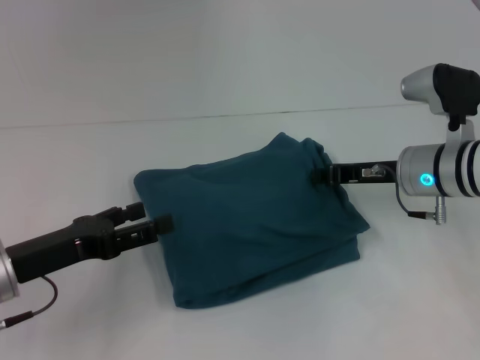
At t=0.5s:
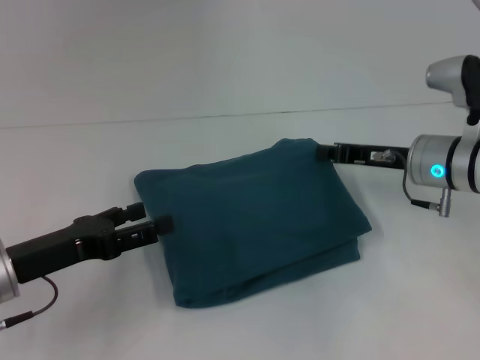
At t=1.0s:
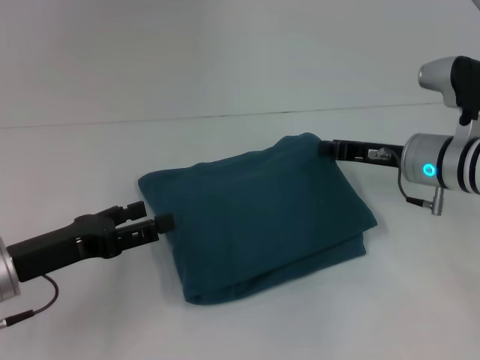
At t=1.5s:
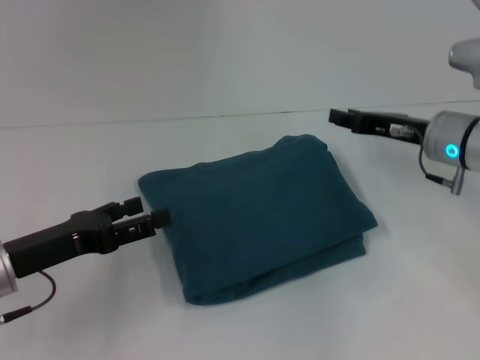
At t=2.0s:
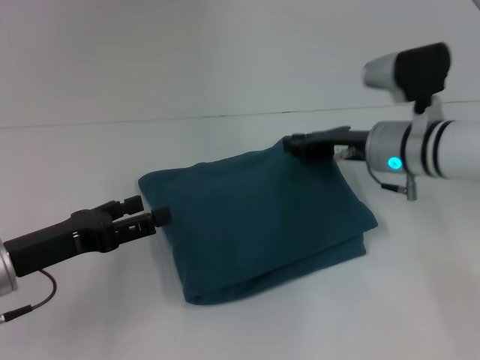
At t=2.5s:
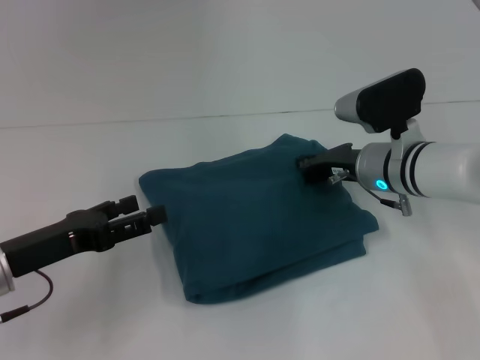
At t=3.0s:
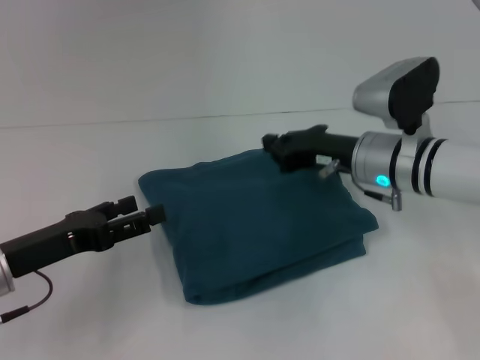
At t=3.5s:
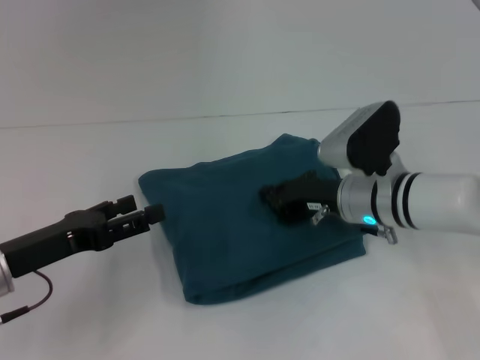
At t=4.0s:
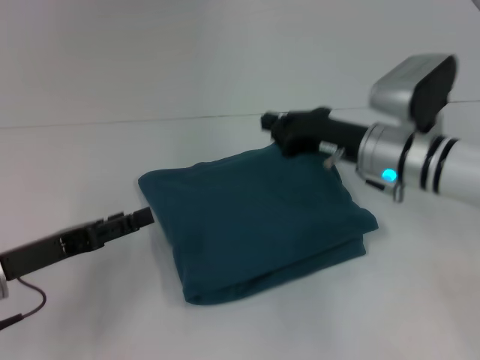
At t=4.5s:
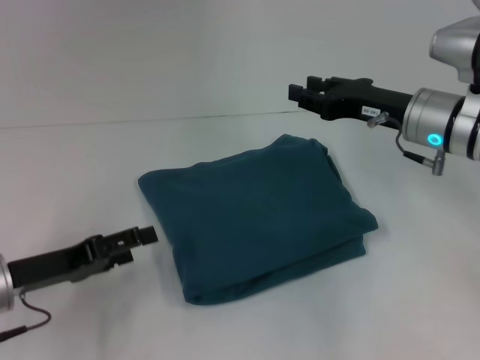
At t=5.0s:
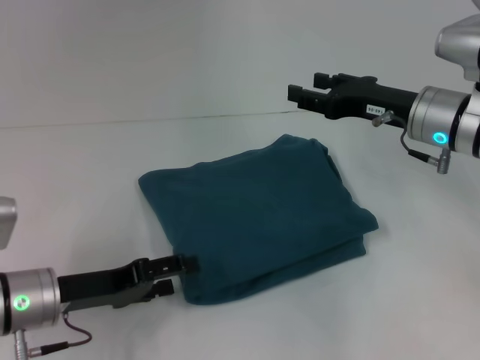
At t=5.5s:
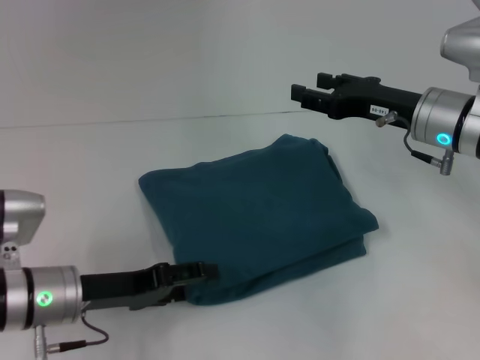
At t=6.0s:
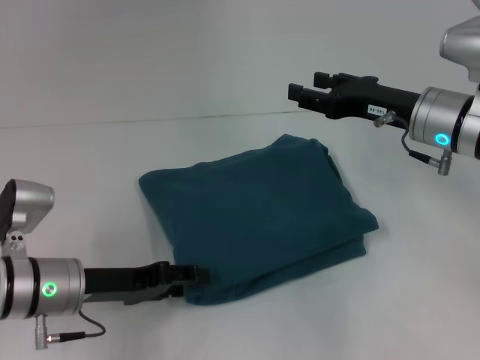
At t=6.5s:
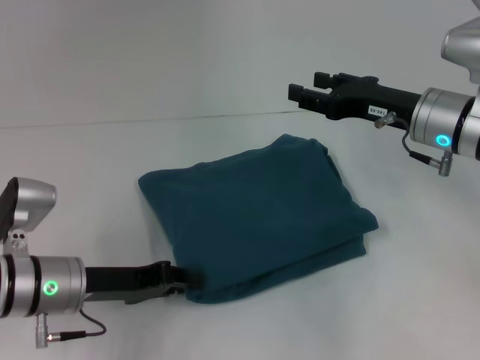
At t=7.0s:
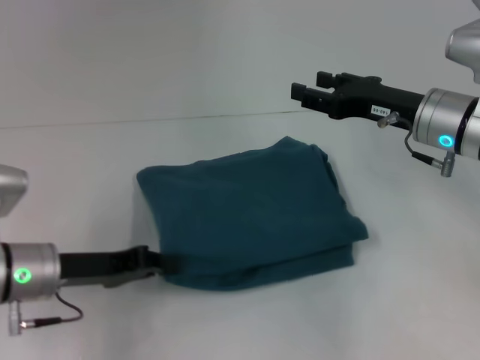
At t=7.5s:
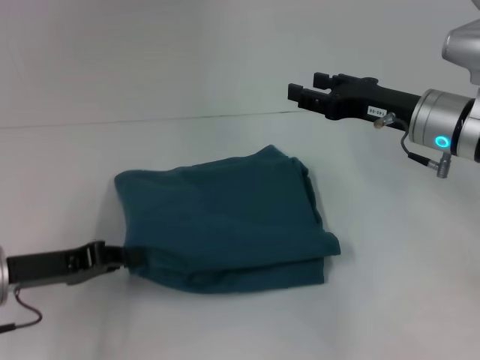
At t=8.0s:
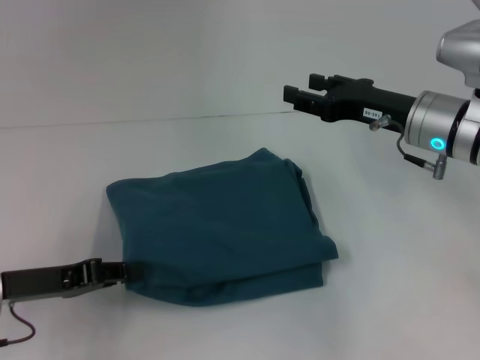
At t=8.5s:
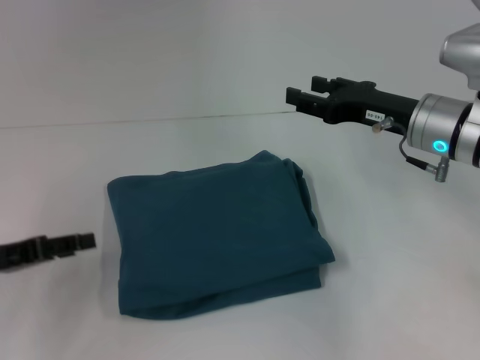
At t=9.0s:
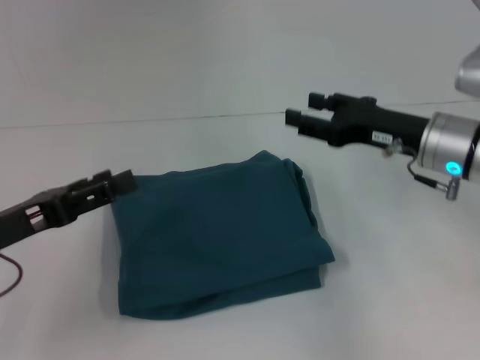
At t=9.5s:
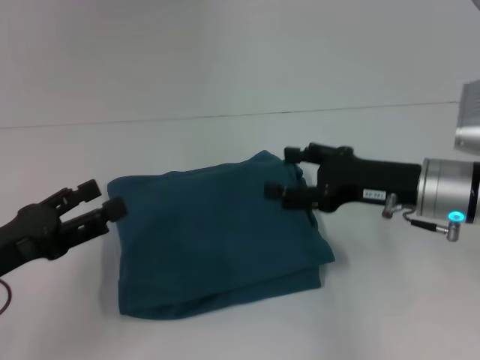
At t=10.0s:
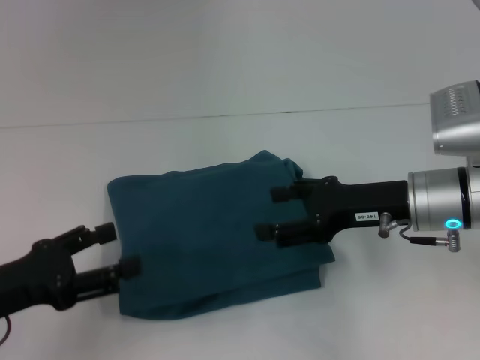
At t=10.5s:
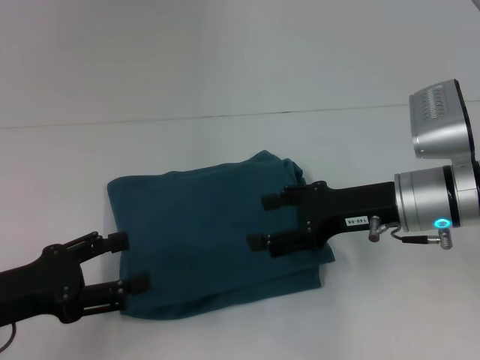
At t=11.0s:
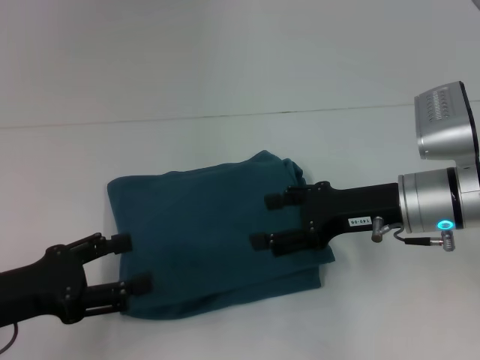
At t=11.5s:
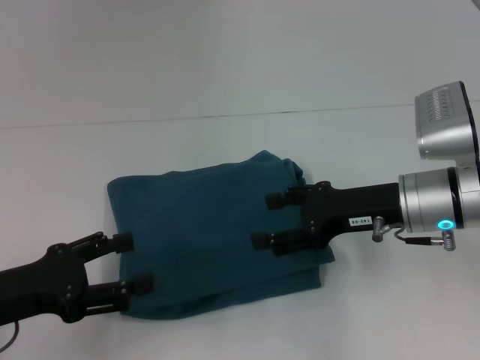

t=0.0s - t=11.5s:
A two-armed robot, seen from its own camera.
t=0.0s - t=2.0s: The grippers make only small movements.
t=4.0s - t=6.0s: The left gripper is displaced to the right by roughly 5 cm. Meanwhile the right gripper changes place by approximately 5 cm, and opens up.
t=6.0s - t=7.5s: The left gripper heads to the left, covering approximately 5 cm, and closes its fingers.
t=7.5s - t=9.5s: The right gripper travels backward by approximately 5 cm, while the left gripper shifts by approximately 5 cm, and opens its fingers.
t=9.5s - t=11.5s: The grippers move only a little.

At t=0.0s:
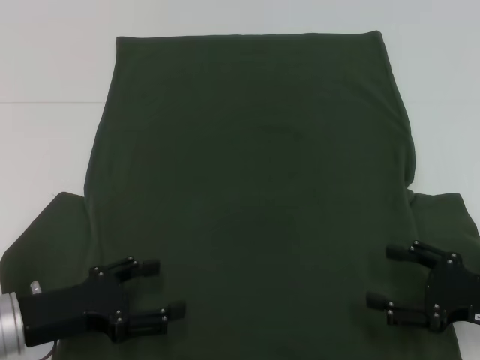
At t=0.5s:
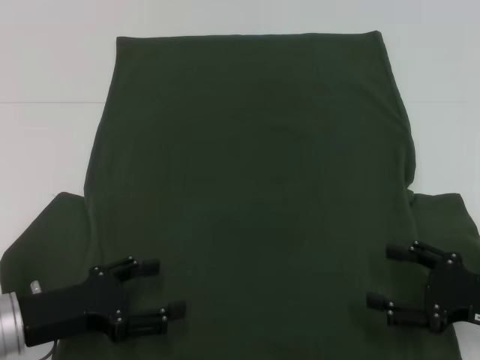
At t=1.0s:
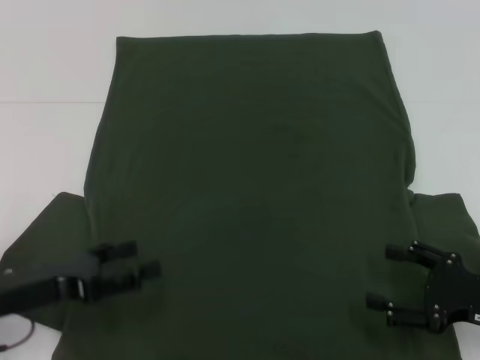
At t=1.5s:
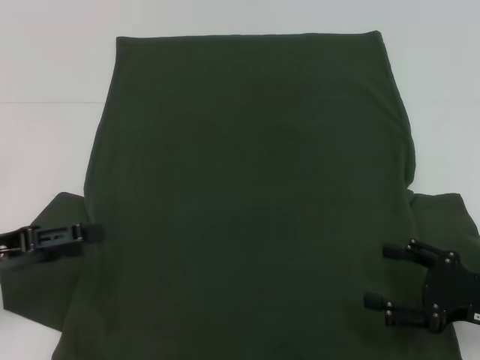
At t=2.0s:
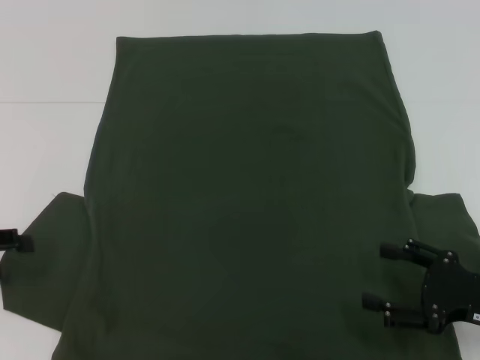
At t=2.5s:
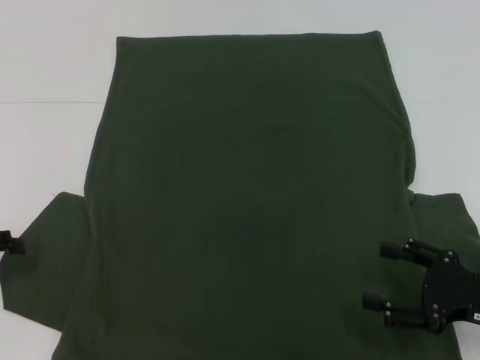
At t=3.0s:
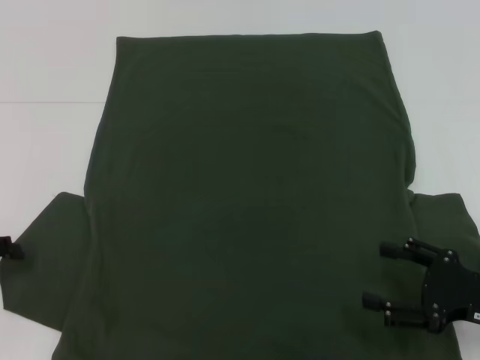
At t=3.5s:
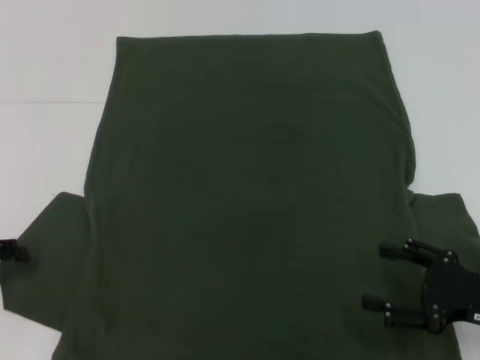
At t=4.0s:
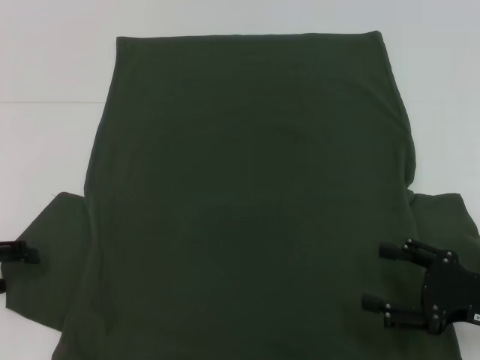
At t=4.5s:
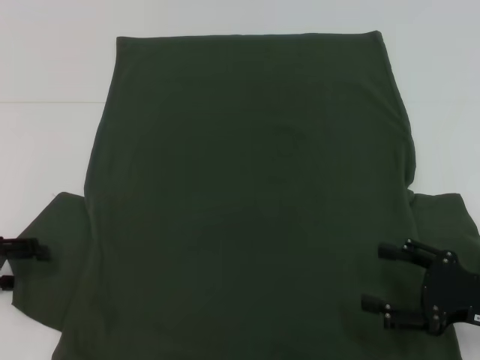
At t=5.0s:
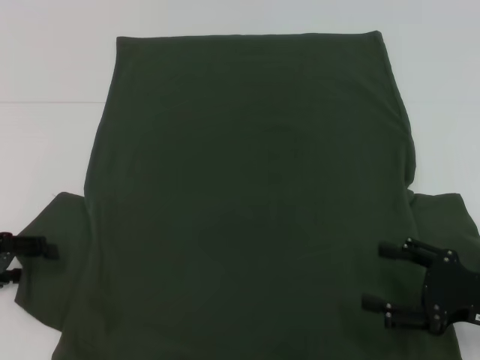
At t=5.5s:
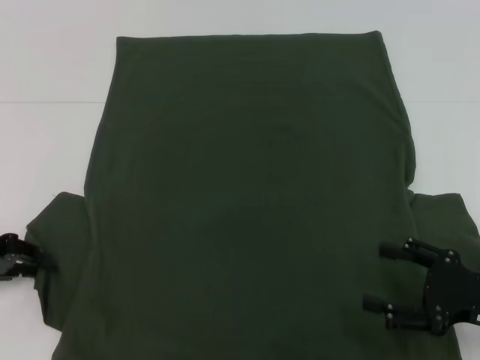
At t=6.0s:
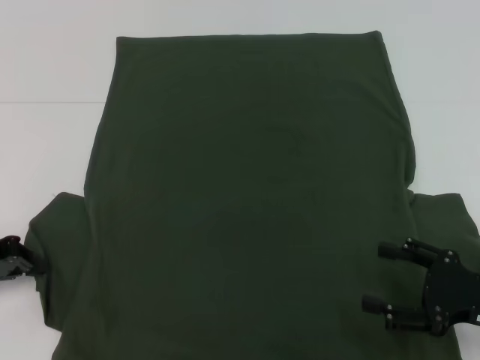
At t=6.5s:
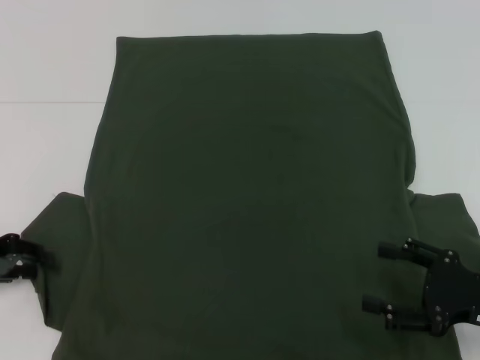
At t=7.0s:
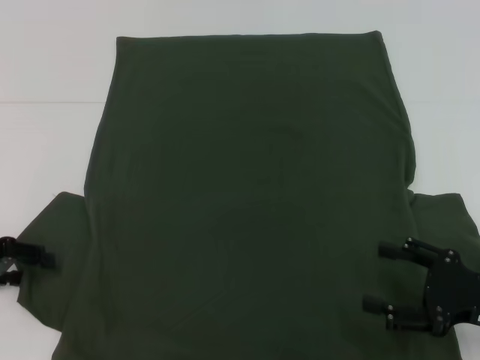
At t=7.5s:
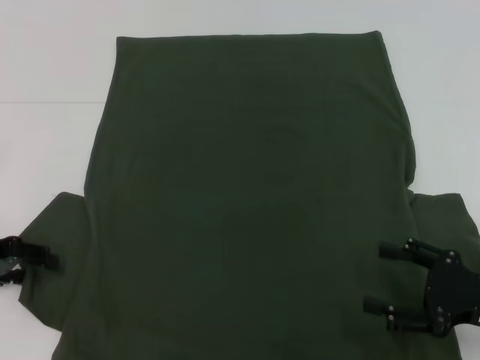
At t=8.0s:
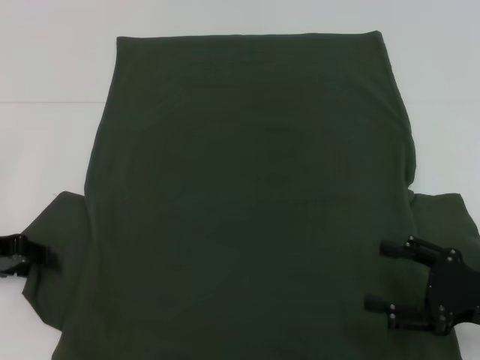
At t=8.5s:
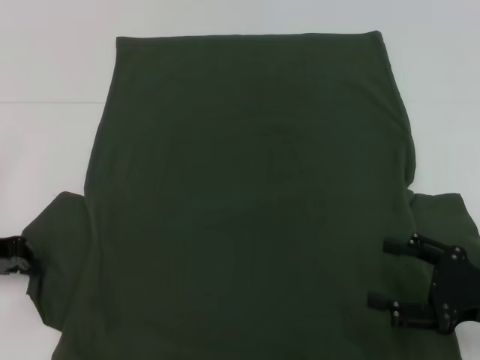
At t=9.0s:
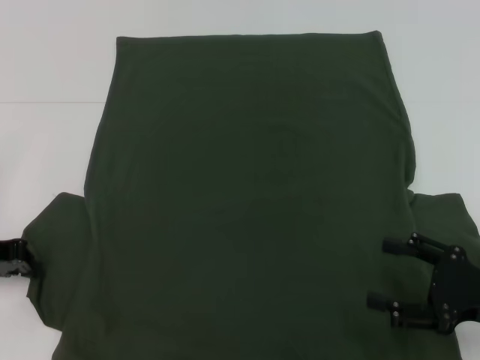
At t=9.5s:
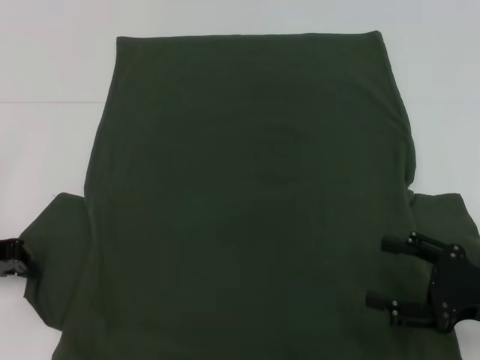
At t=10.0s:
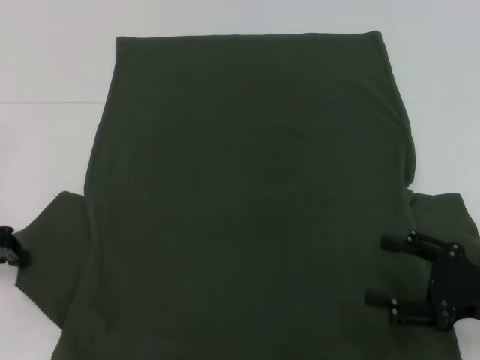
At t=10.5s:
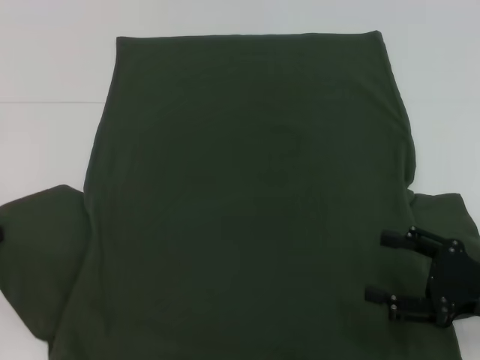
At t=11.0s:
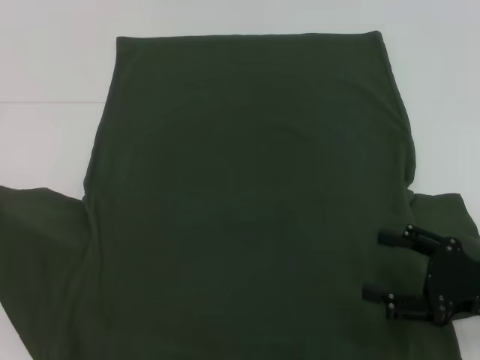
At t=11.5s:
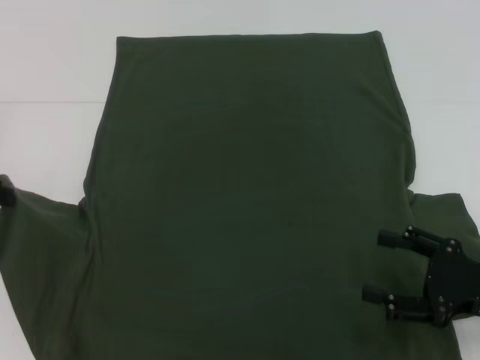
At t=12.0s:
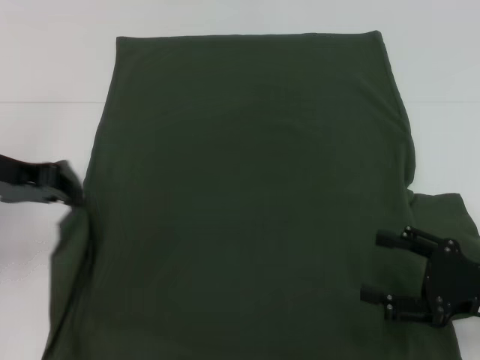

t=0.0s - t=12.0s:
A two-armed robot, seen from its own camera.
t=0.0s - t=2.0s: The left gripper moves to the left and upward, some 15 cm.
t=4.0s - t=6.0s: The left gripper closes up.
t=6.0s - t=8.0s: The left gripper opens up.
t=8.0s - t=10.0s: The left gripper closes.
t=10.0s - t=12.0s: The left gripper heads upward and to the right, covering roughly 10 cm.

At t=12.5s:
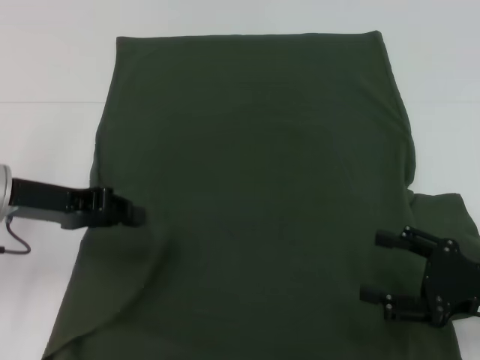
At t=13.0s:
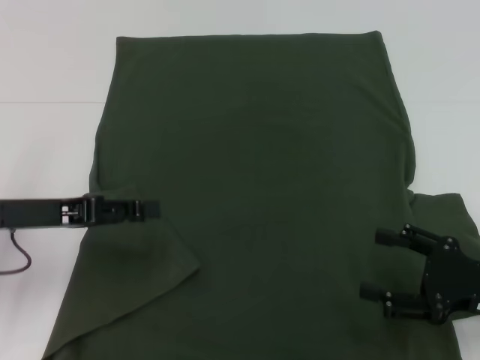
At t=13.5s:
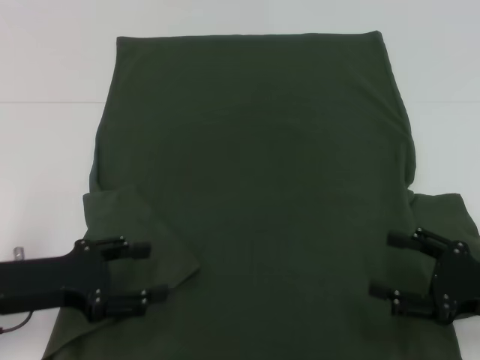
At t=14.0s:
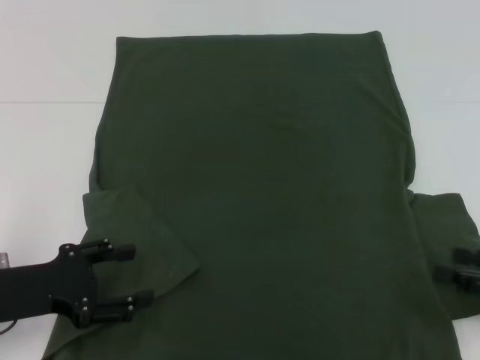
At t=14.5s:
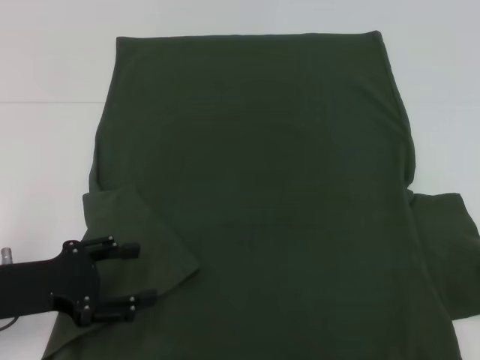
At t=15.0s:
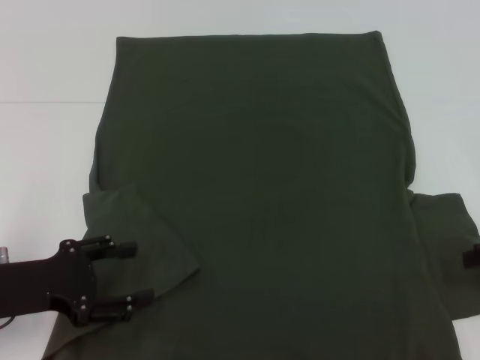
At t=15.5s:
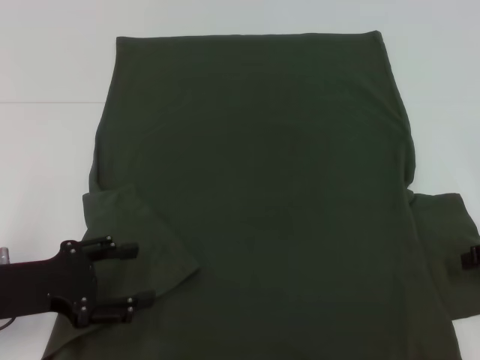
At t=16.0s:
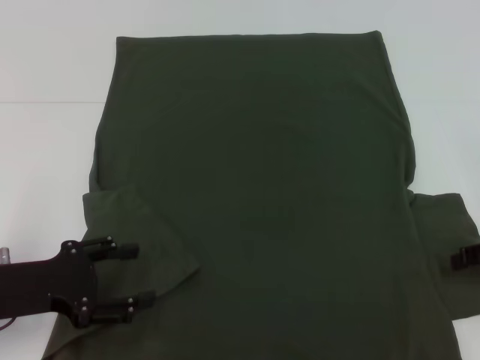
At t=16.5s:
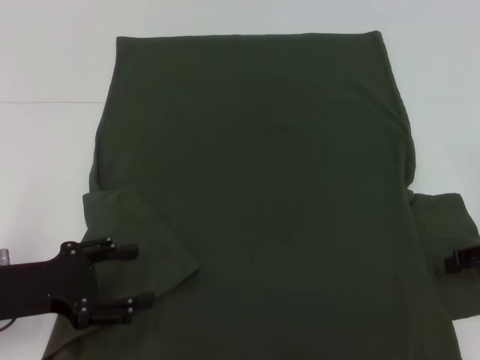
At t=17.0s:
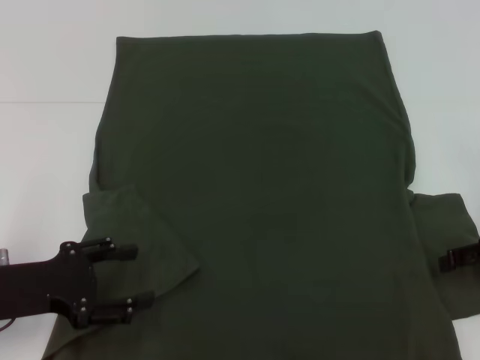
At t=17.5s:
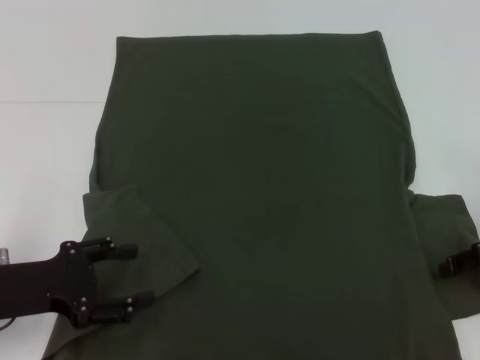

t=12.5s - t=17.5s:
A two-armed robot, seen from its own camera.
Step, t=12.5s - t=14.5s: Fold the bottom left sleeve with your left hand.
t=12.5s - t=15.0s: The right gripper shifts roughly 10 cm forward, to the right and upward, while the left gripper travels backward and downward by some 10 cm, and opens.
